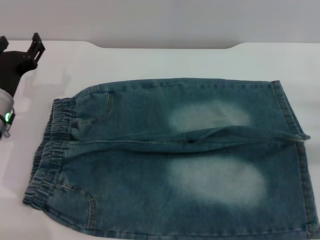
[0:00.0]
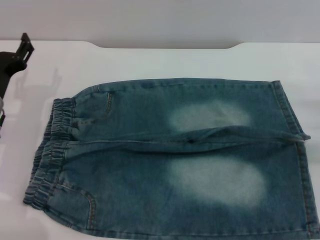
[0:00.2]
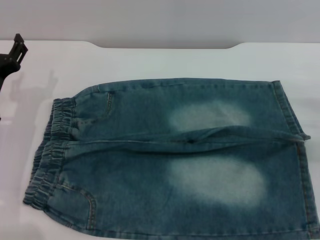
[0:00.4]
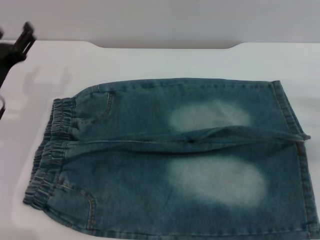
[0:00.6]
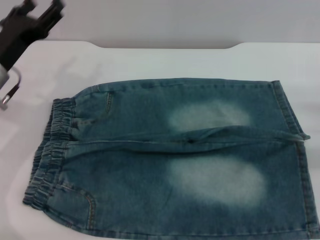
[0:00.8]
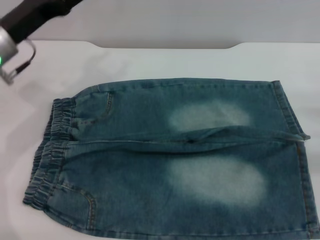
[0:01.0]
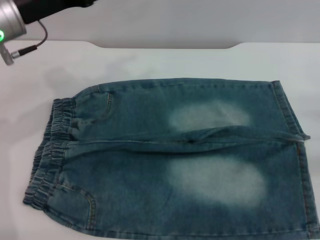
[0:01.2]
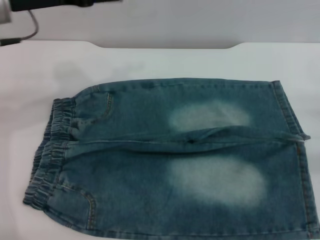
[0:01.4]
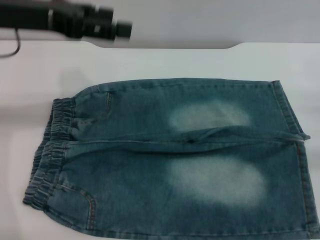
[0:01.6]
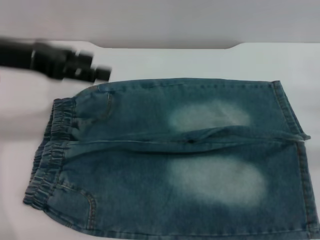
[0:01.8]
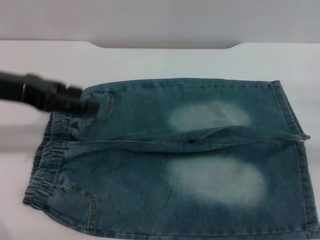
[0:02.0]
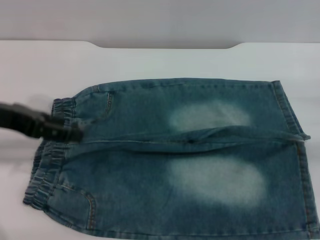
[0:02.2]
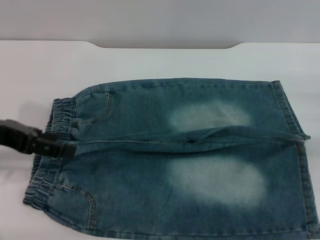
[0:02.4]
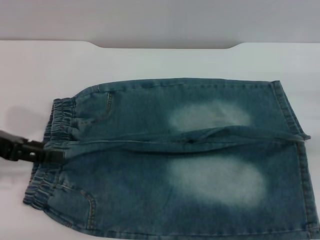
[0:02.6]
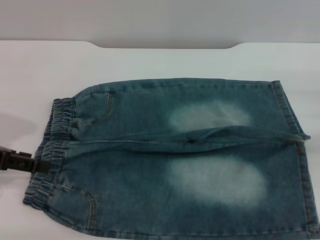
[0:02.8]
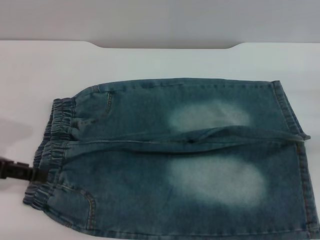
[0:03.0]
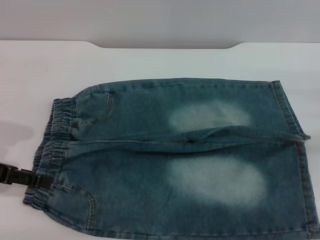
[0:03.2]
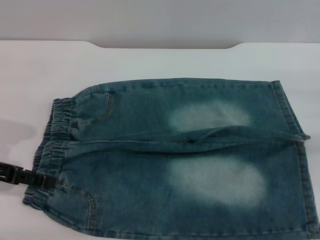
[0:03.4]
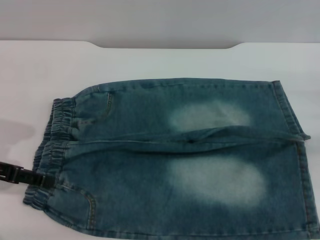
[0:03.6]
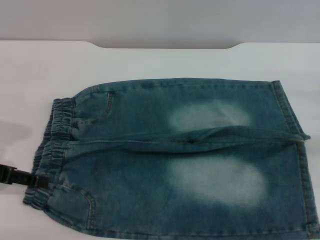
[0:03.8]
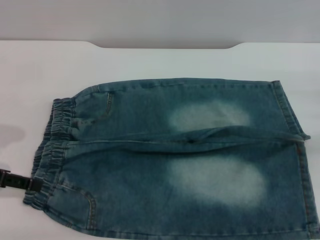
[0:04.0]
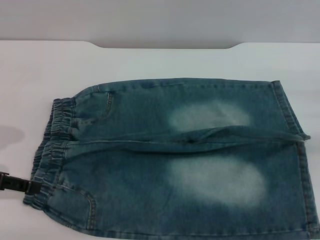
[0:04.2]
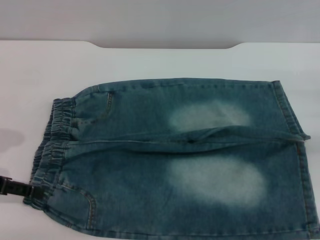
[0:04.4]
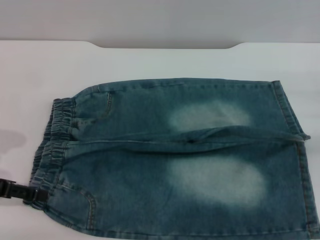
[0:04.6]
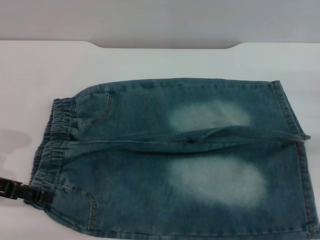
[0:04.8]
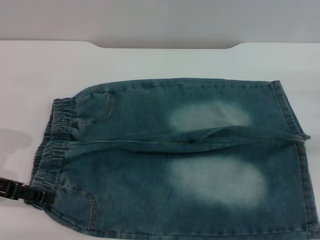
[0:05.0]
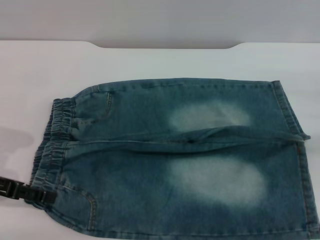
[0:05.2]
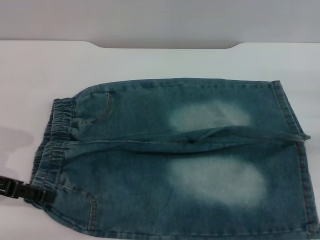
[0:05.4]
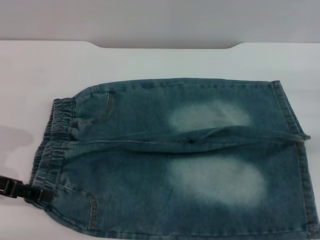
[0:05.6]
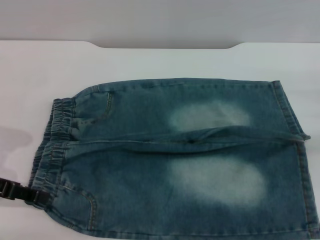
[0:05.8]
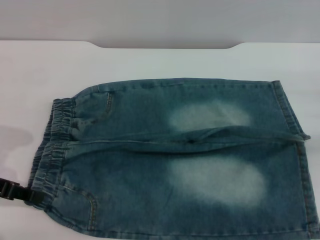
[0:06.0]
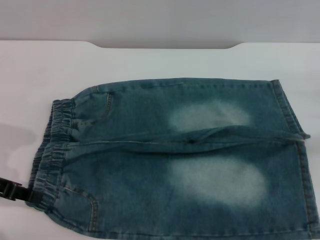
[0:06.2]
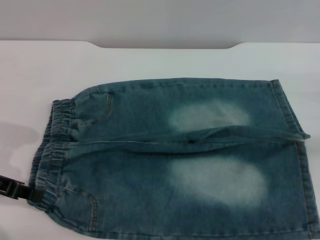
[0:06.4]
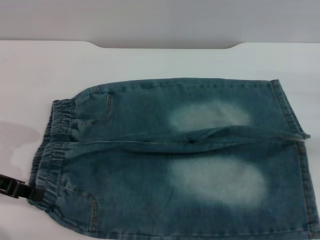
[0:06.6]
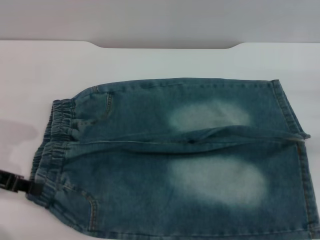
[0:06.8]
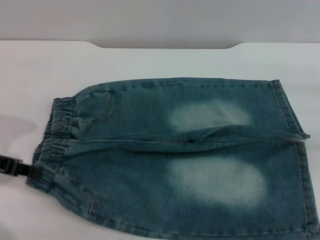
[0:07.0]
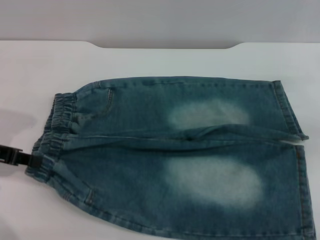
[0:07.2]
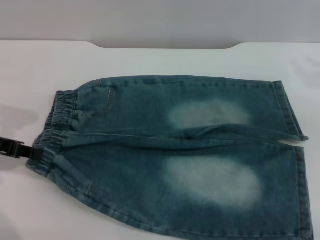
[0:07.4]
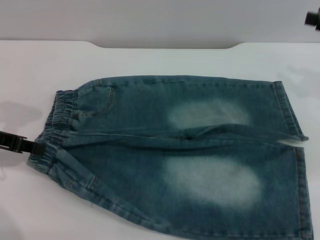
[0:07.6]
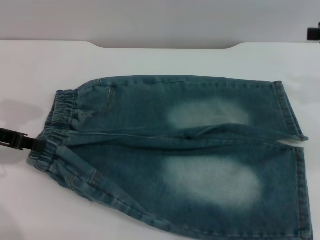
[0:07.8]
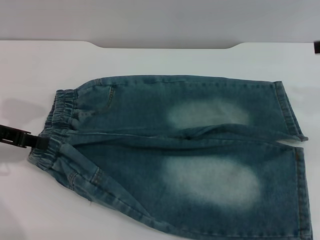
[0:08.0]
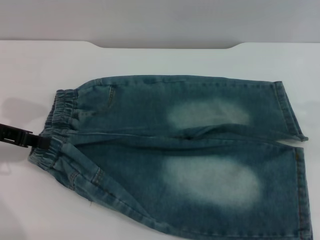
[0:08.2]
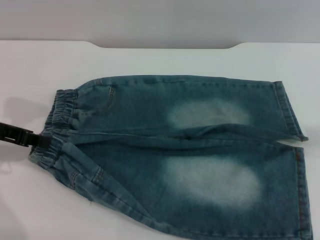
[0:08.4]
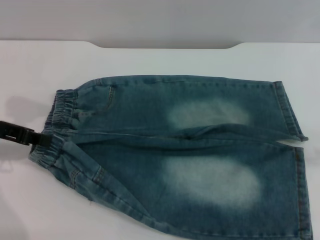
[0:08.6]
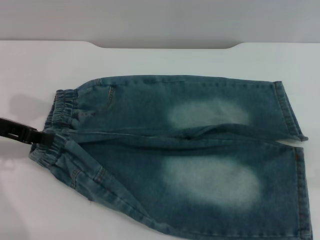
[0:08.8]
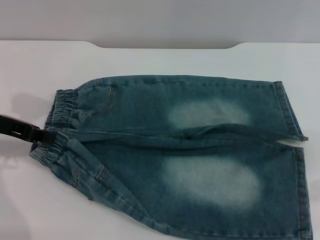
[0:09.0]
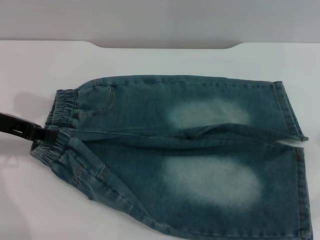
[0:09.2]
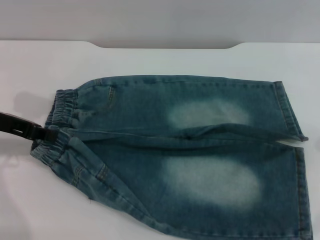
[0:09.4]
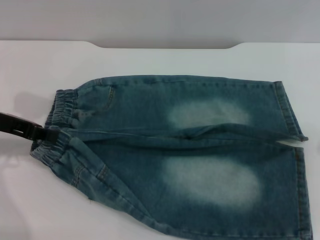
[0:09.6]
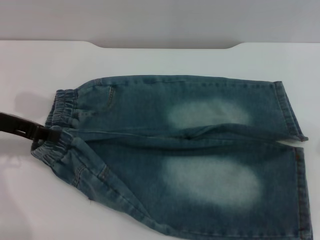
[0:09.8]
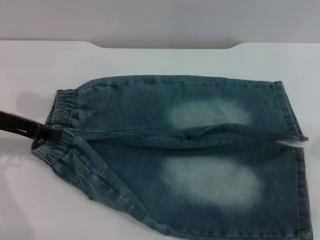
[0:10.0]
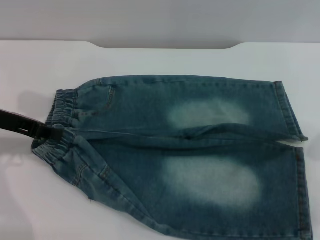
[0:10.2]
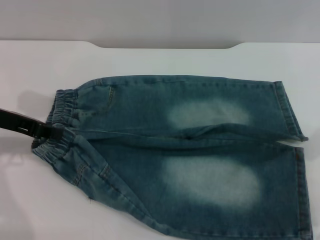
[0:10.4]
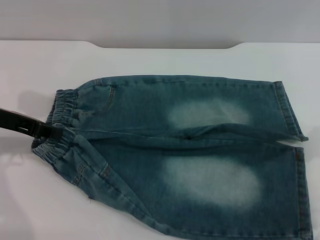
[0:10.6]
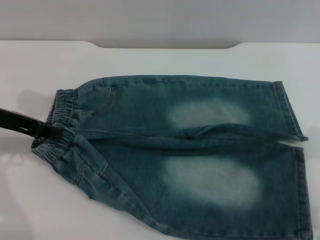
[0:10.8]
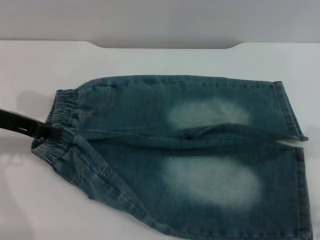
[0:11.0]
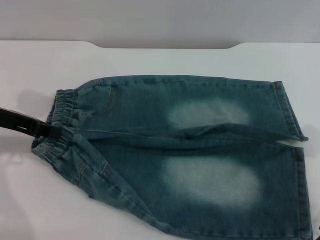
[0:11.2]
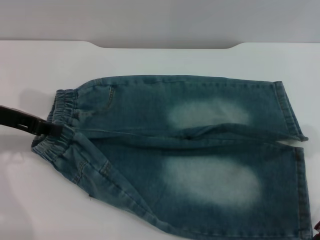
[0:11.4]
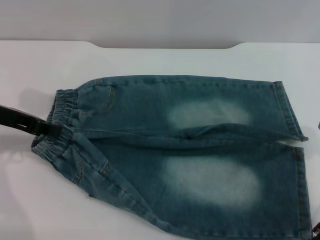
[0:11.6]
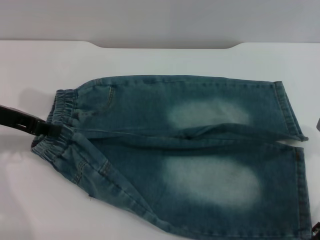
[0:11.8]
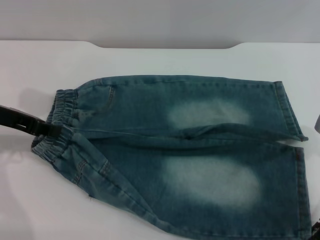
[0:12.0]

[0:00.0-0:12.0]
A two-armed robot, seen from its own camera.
0:00.0 to 0:01.6: The left gripper goes roughly 20 cm upward.
0:01.6 to 0:03.0: The left gripper moves downward, to the left and backward, roughly 15 cm.
0:03.0 to 0:04.4: The grippers move only a little.
0:06.0 to 0:07.6: The left gripper closes up. Meanwhile the right gripper goes some 10 cm upward.
0:07.6 to 0:09.0: The right gripper travels backward by some 10 cm.
0:10.4 to 0:12.0: The grippers stay close to where they were, moving slightly.

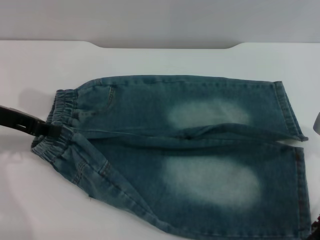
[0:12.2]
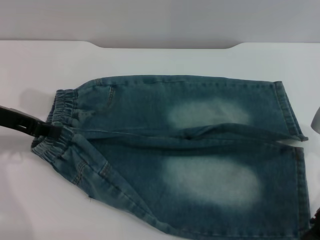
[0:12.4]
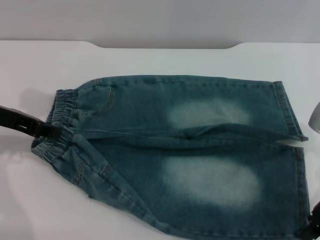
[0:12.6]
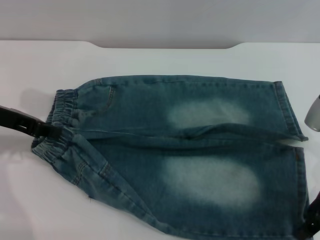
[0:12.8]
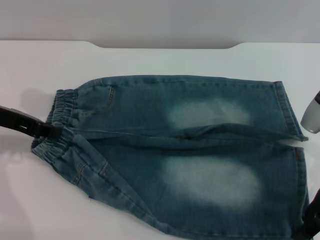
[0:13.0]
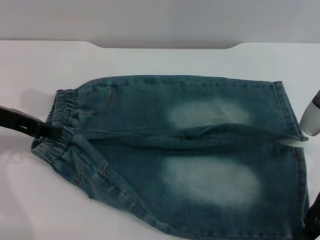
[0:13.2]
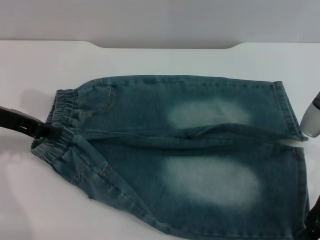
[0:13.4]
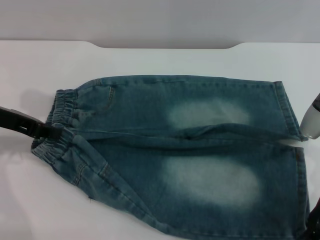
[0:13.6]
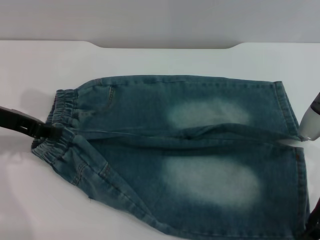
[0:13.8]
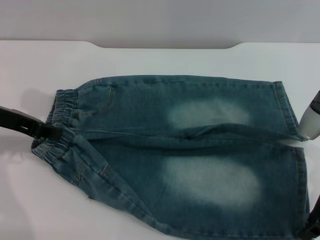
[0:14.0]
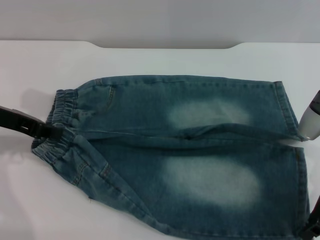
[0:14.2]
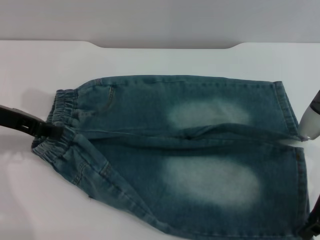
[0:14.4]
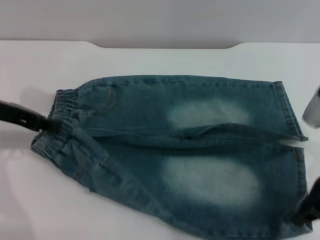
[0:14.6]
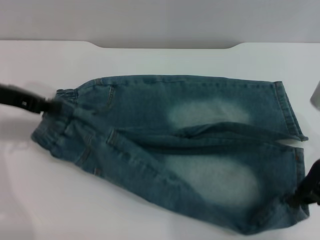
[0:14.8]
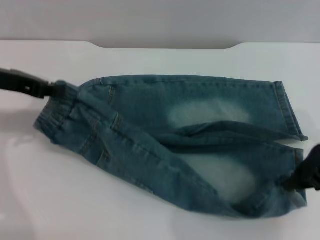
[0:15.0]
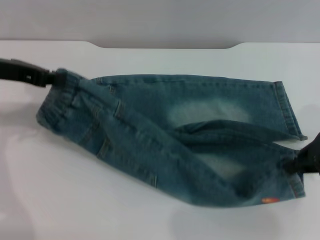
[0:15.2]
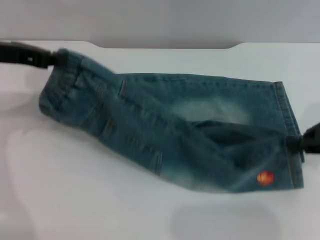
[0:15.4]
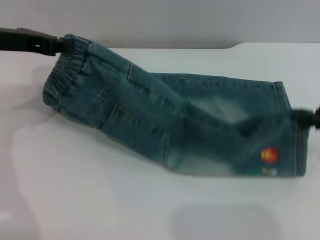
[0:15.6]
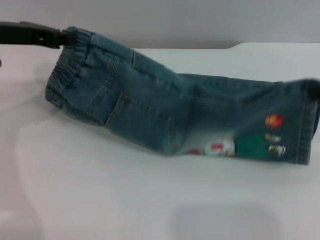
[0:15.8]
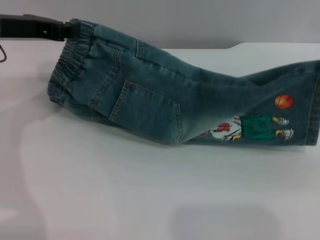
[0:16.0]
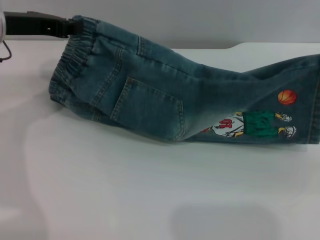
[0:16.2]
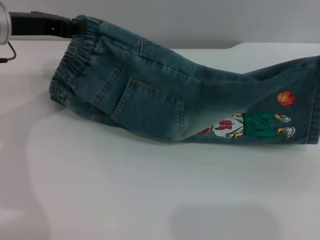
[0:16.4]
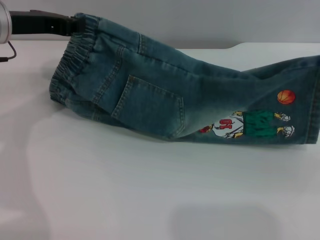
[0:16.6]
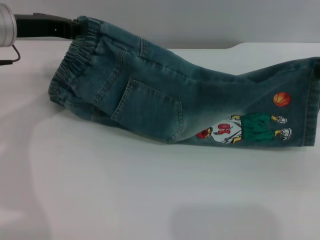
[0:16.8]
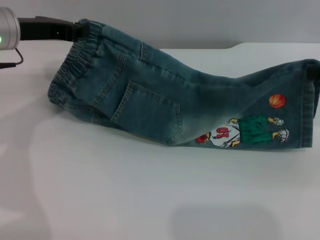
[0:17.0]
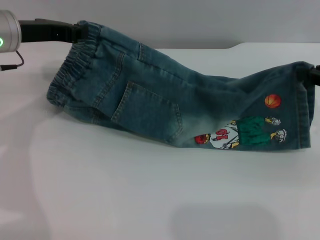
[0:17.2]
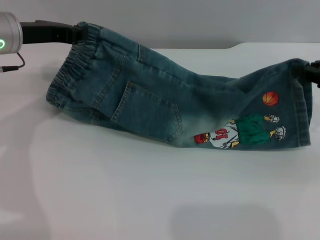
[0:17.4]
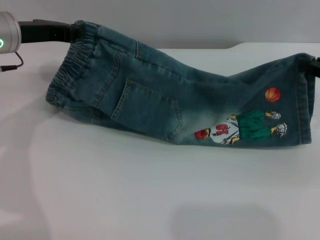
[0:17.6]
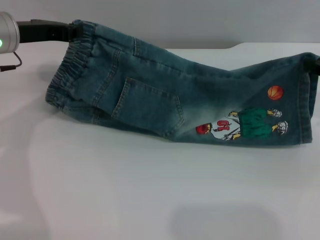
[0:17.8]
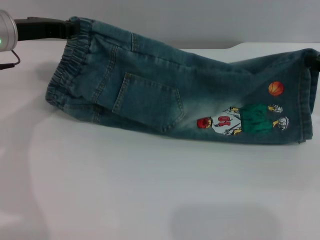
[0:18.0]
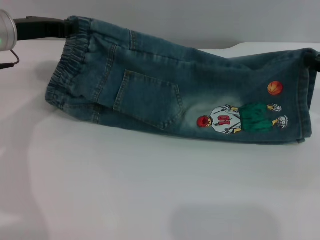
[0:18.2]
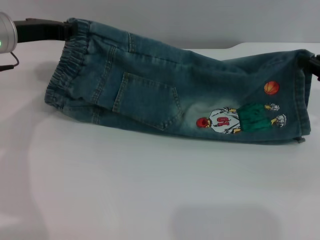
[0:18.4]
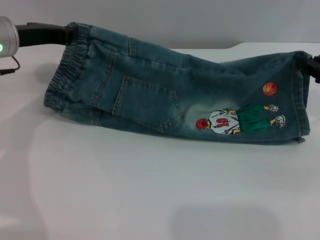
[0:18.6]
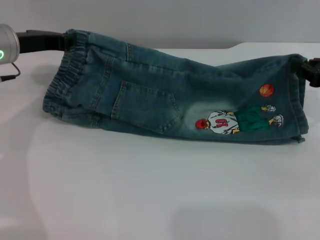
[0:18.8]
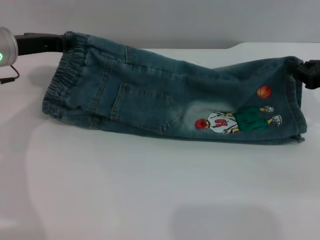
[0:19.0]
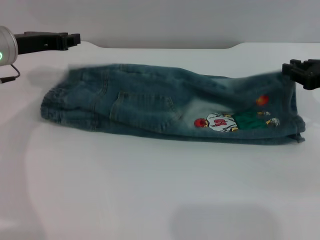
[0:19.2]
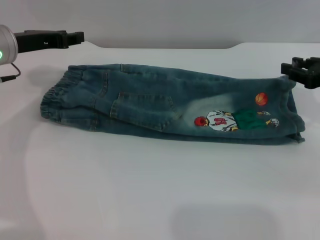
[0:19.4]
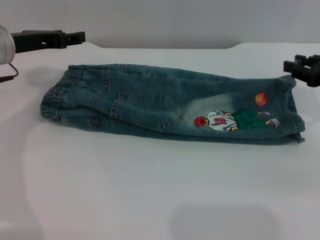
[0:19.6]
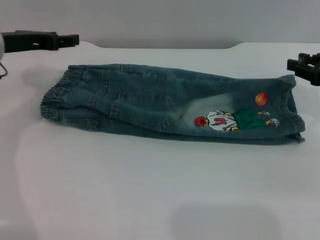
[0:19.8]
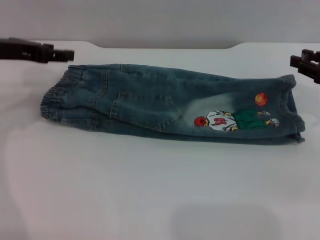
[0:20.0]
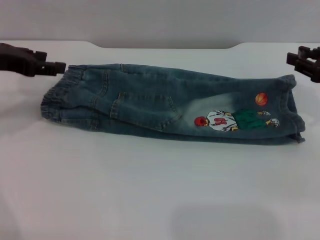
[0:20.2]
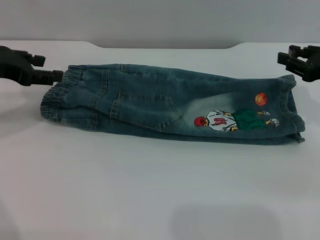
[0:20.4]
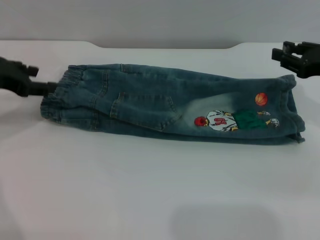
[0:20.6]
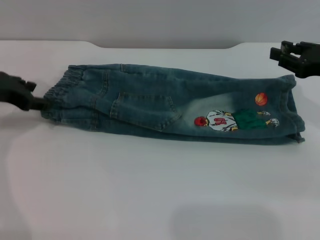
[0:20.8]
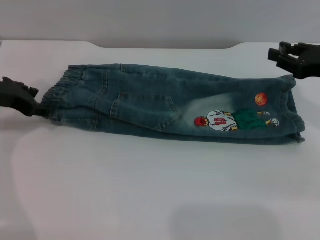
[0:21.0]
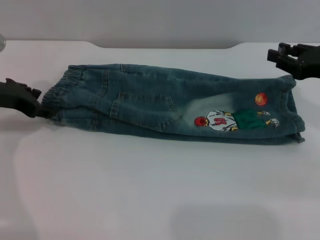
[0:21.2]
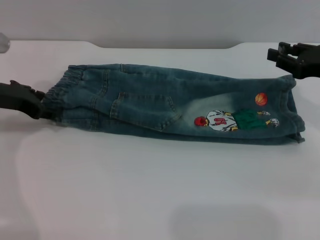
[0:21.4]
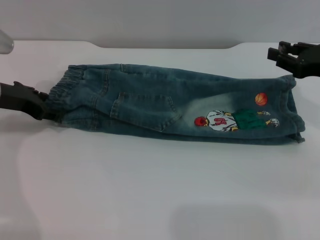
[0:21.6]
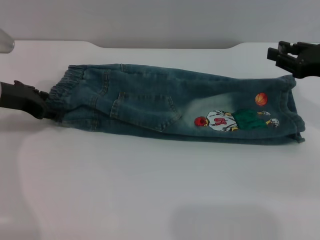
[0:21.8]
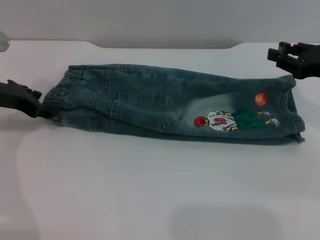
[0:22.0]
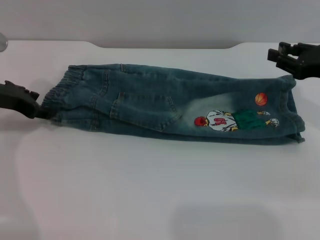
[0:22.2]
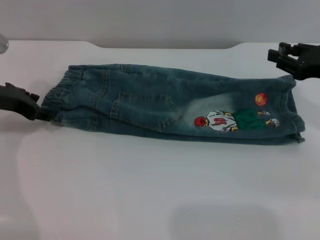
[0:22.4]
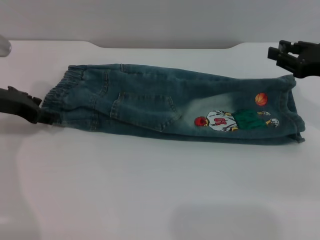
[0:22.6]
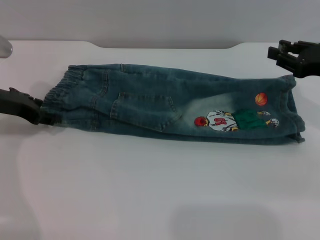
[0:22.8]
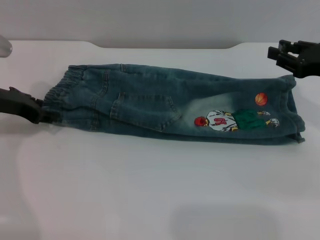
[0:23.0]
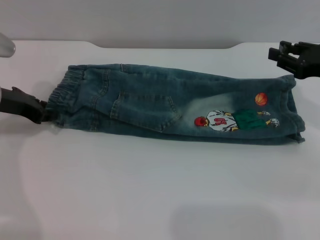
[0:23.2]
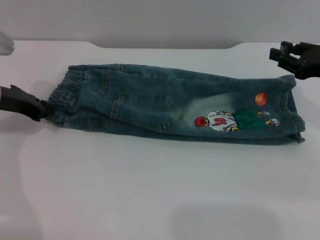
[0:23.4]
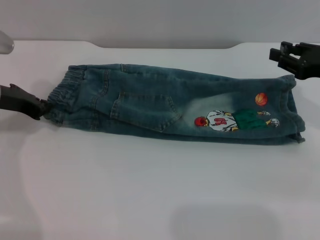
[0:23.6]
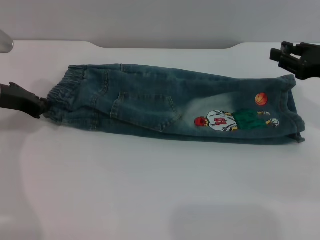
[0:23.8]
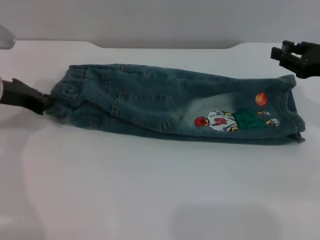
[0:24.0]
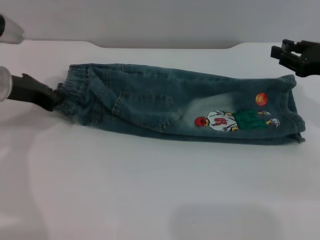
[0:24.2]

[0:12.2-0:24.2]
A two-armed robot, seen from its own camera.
Step, 0:12.2 to 0:19.4: Fold the bottom of the pants upward with both grippers.
0:12.2 to 0:13.8: The grippers make only small movements.
0:13.8 to 0:15.2: The right gripper travels upward by some 5 cm, and closes.
0:15.2 to 0:16.6: The right gripper is displaced to the right by roughly 5 cm. The left gripper moves approximately 5 cm.
0:16.6 to 0:18.2: The right gripper moves downward, some 5 cm.
0:18.2 to 0:19.8: The right gripper opens its fingers. The left gripper opens its fingers.
0:21.2 to 0:22.6: Both grippers stay about where they are.
0:22.6 to 0:24.2: The left gripper closes its fingers.
